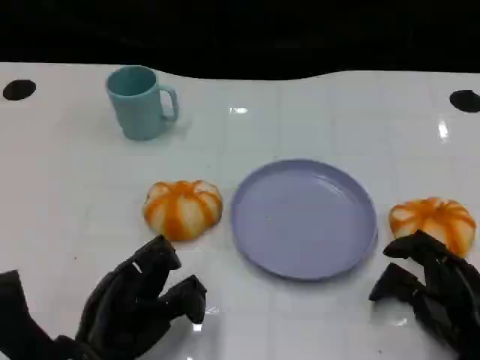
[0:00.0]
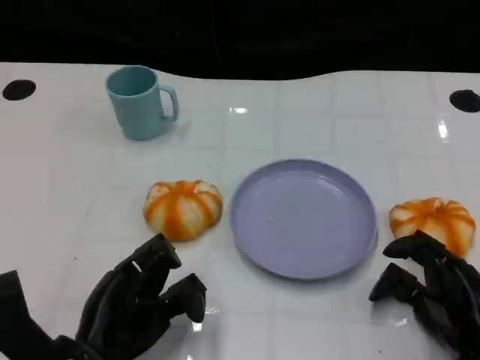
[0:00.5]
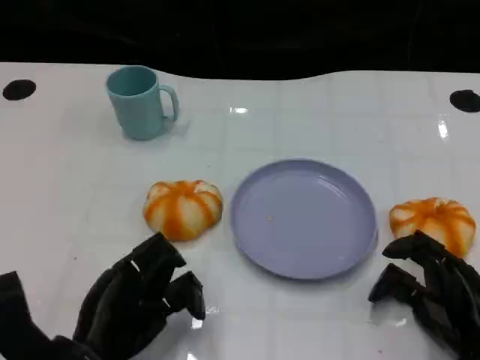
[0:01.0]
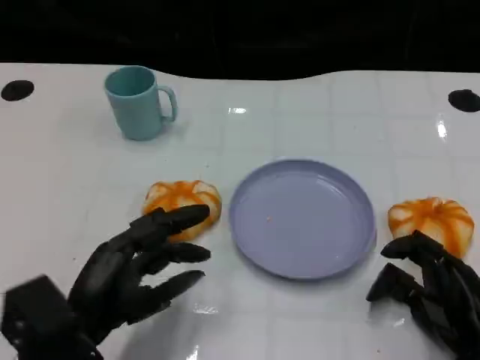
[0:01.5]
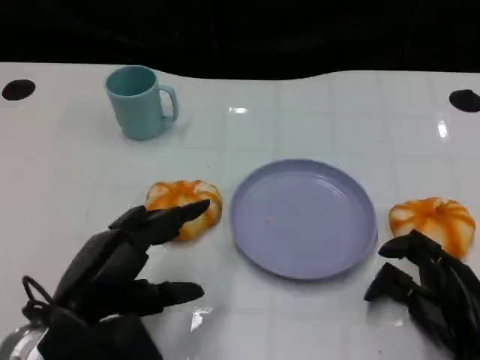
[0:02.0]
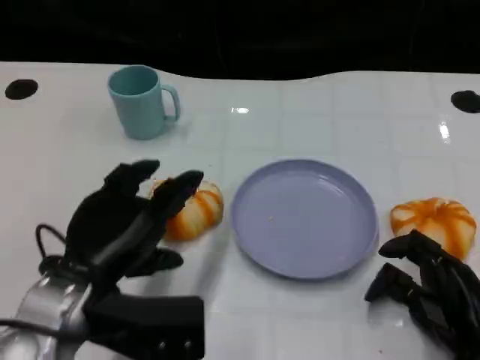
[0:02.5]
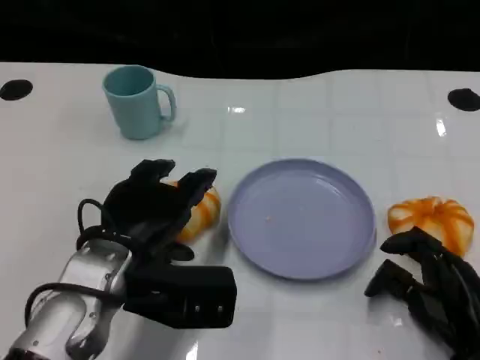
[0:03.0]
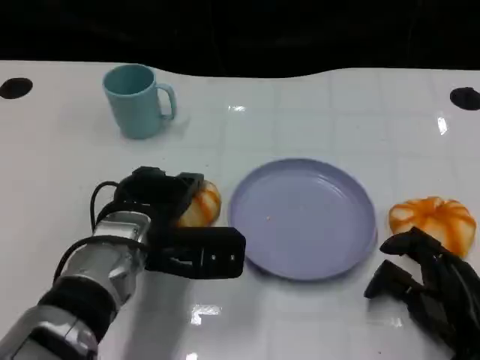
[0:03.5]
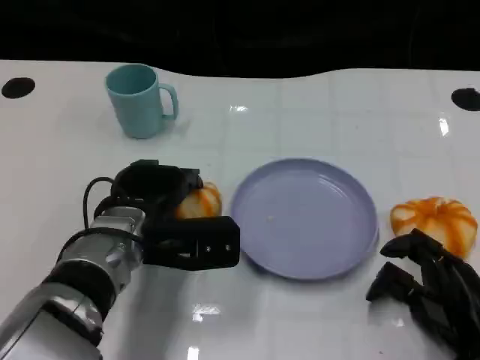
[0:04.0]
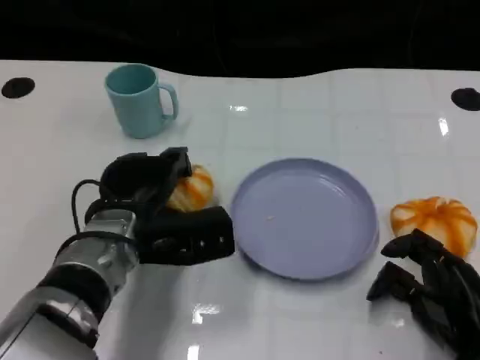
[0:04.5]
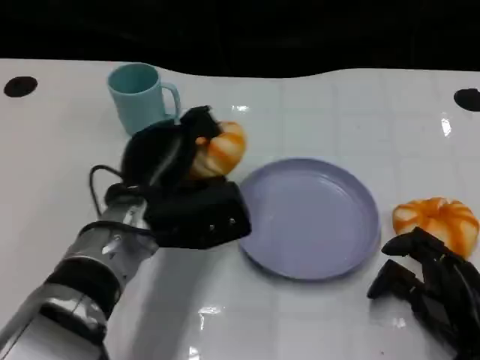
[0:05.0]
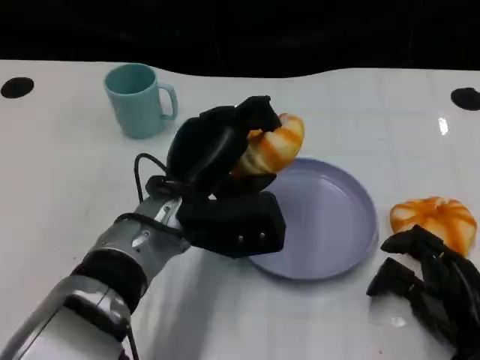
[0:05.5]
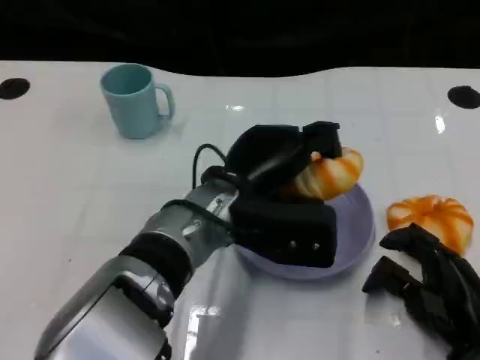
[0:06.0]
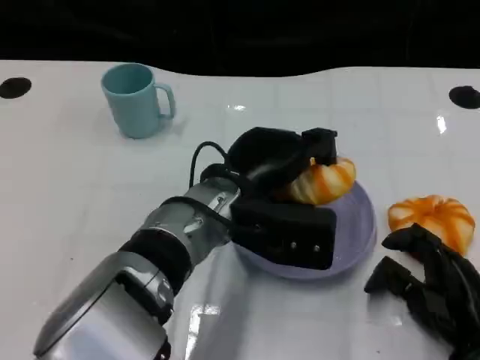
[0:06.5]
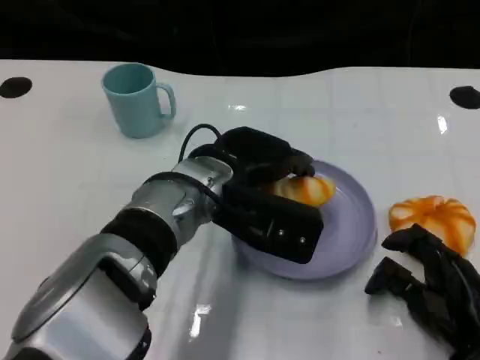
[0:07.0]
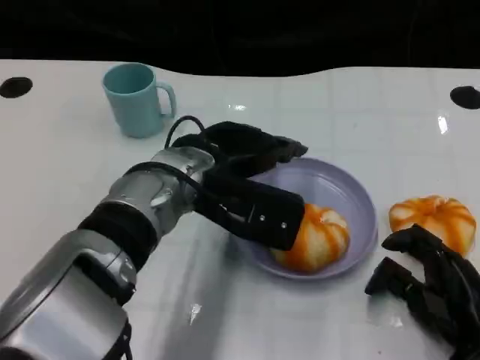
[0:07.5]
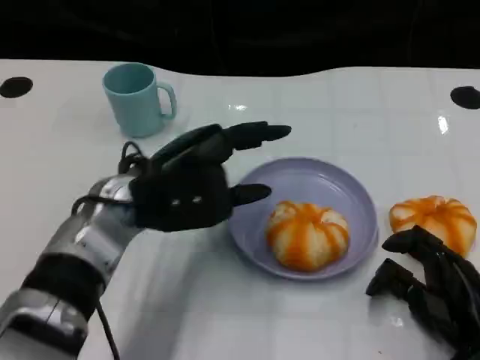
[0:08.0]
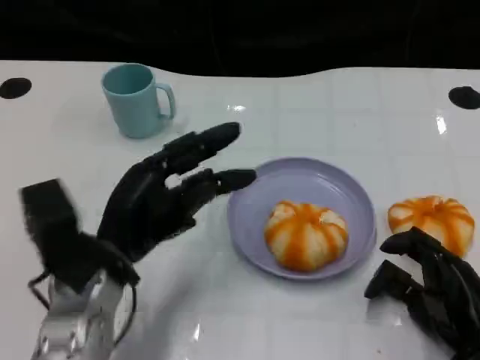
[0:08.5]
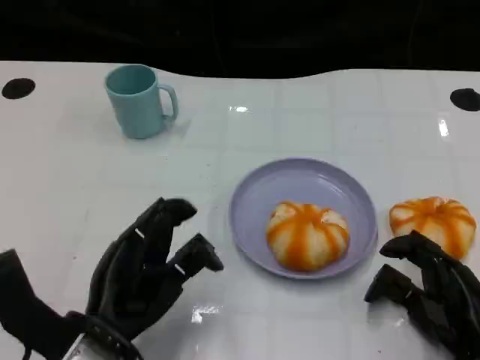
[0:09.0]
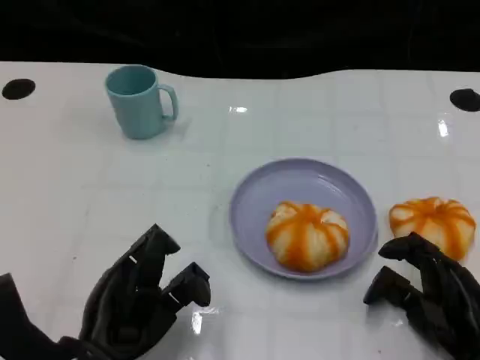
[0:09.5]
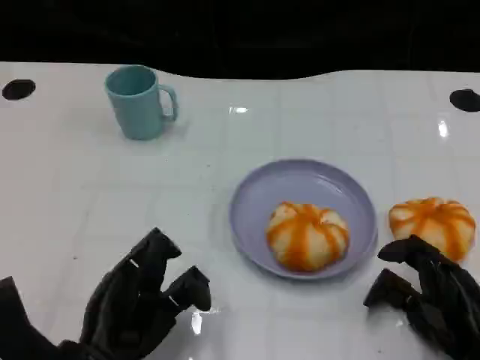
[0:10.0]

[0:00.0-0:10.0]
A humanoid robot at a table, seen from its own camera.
Task of the whole recording: Grasp the bread from the table and place it into the plate.
0:00.0 to 0:02.0: The left hand heads upward, covering approximately 5 cm.
0:02.0 to 0:04.0: The left hand is displaced forward and to the right by approximately 15 cm.
0:04.0 to 0:06.0: The left hand is displaced to the right by roughly 10 cm.
0:06.0 to 0:08.0: The left hand shifts about 10 cm to the left.
0:08.0 to 0:10.0: The left hand is displaced backward and downward by about 15 cm.

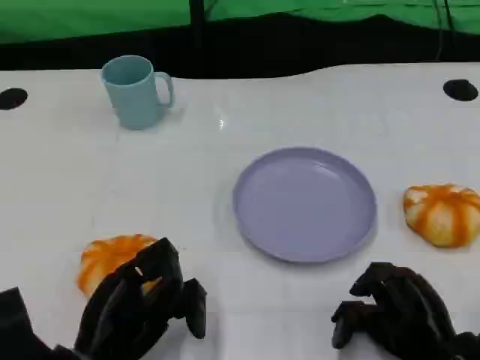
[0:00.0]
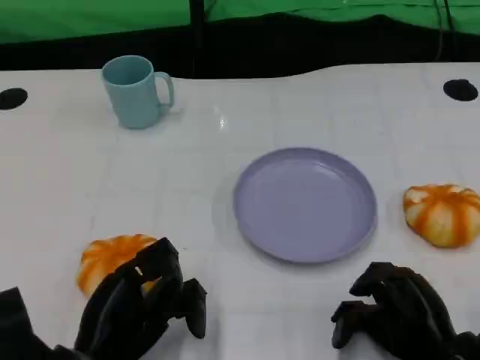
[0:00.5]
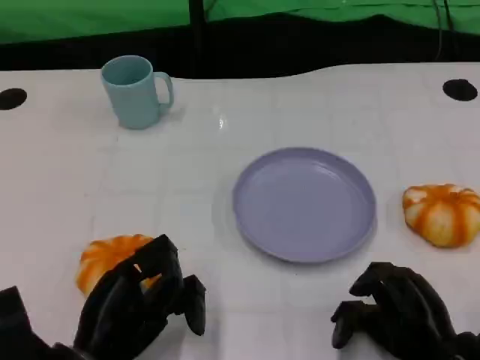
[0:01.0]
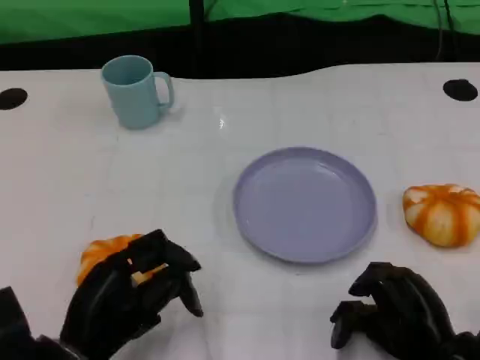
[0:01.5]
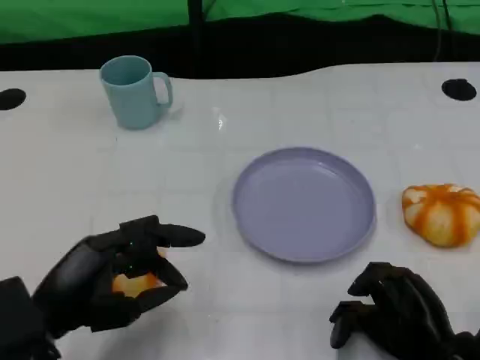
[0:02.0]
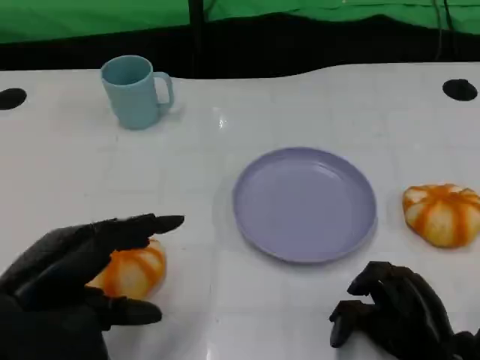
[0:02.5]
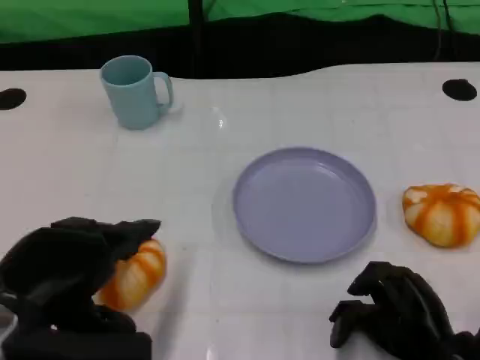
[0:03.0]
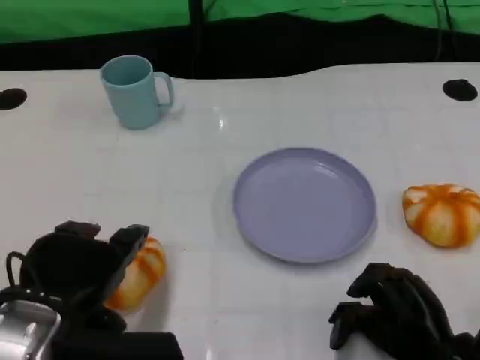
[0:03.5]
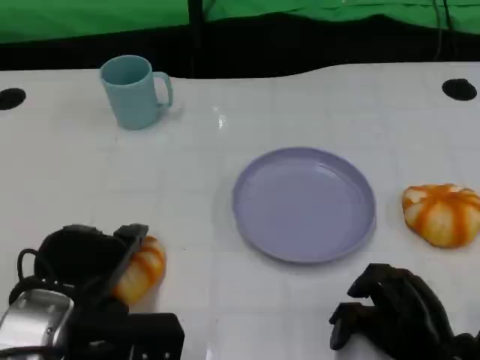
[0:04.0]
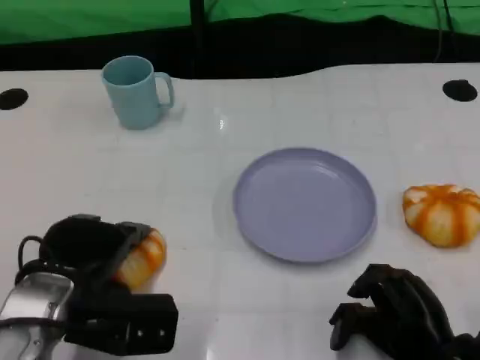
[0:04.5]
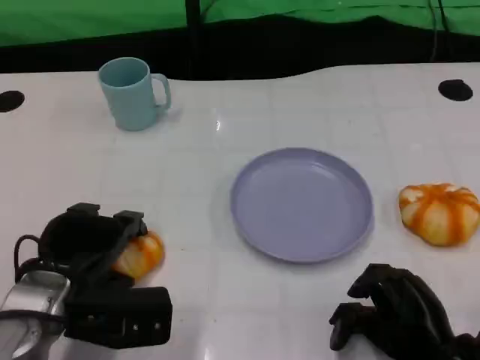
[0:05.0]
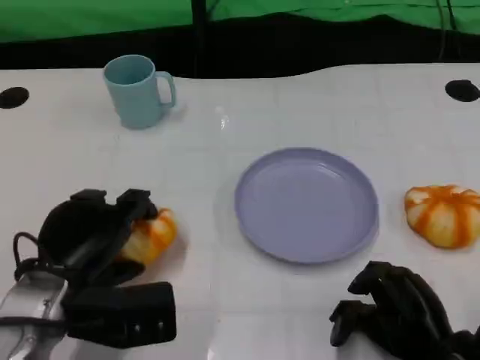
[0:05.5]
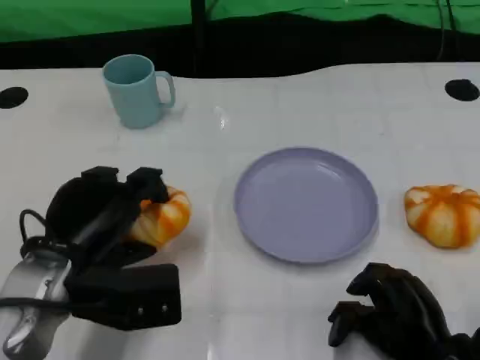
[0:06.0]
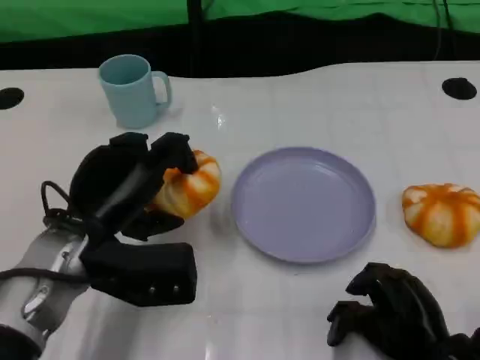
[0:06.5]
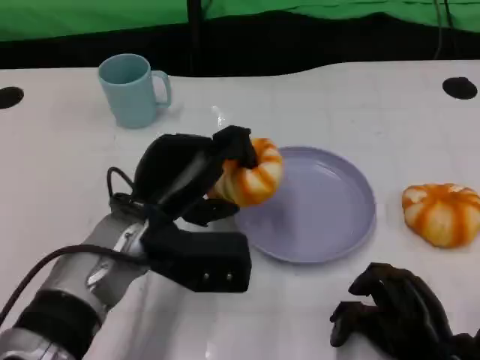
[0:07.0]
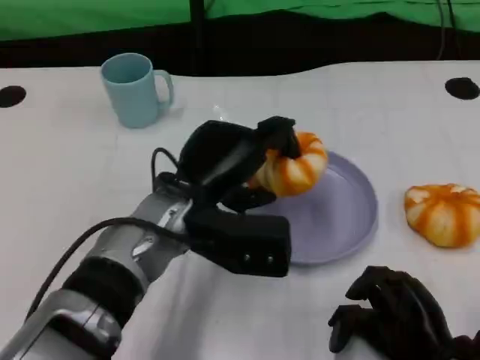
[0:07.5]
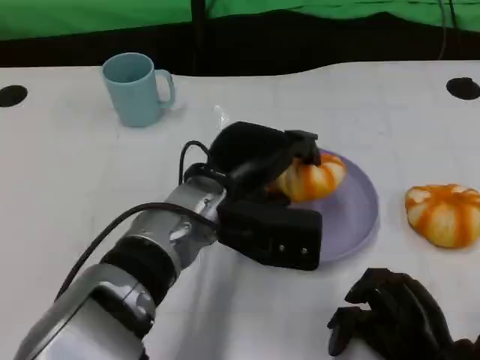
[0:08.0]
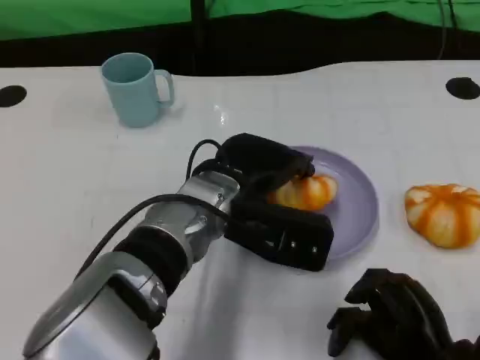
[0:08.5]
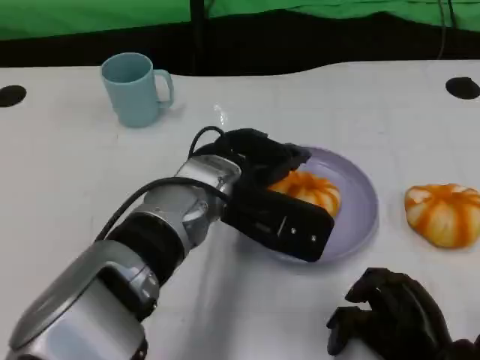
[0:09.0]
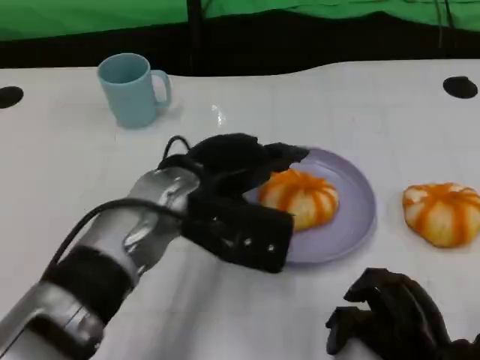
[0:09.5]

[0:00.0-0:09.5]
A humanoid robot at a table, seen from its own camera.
Task of the whole recording: Grasp the bread from the table and place it into the plate.
0:00.0 to 0:02.0: The left hand shifts about 5 cm upward.
0:05.5 to 0:07.5: The left hand shifts roughly 15 cm to the right and forward.

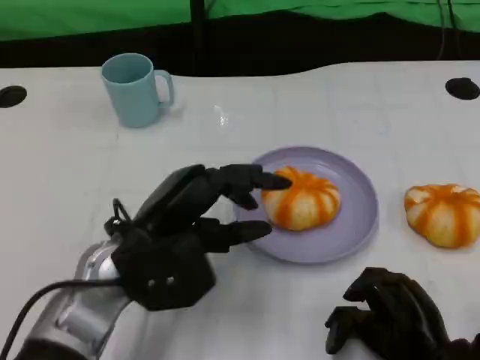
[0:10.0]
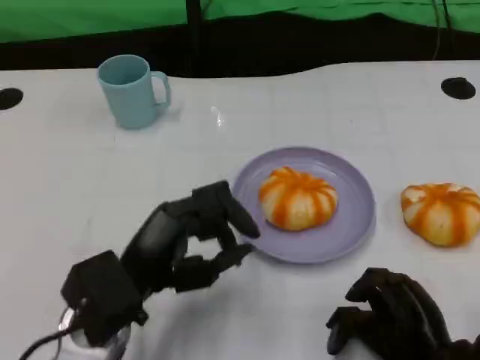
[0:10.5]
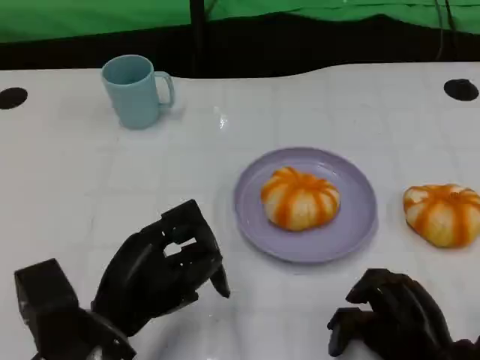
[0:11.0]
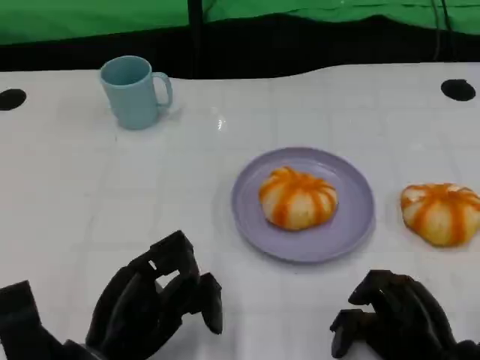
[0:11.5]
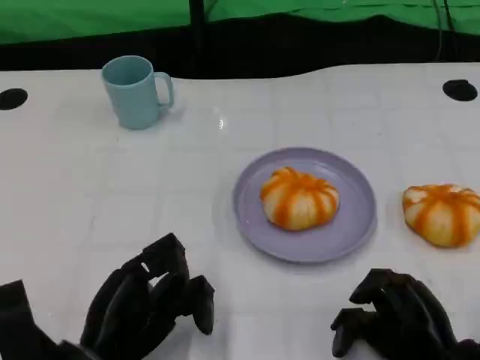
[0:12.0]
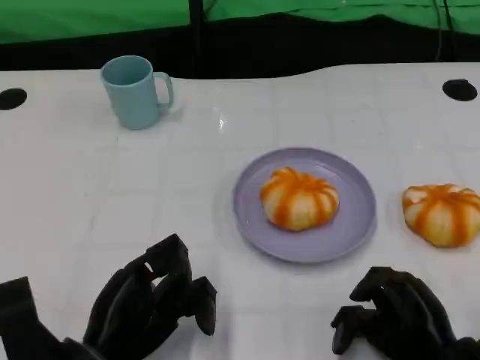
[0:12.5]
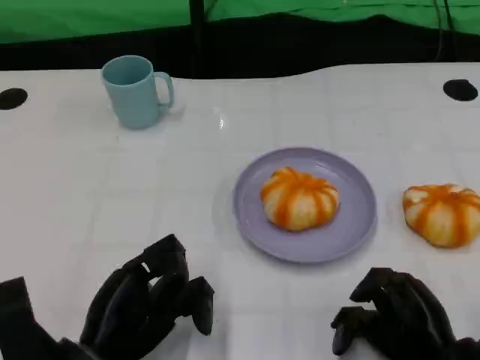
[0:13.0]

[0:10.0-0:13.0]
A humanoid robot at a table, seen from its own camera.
Task of the whole recording: Grasp the bread from the table and place it into the plate.
0:10.0 to 0:11.5: The left hand goes about 10 cm backward and downward.
0:11.5 to 0:13.0: The hands make only small movements.

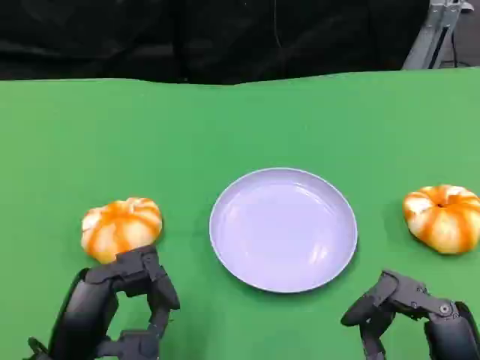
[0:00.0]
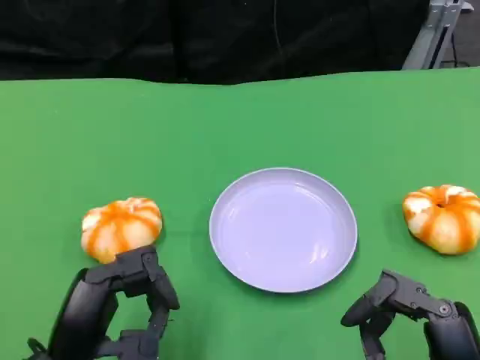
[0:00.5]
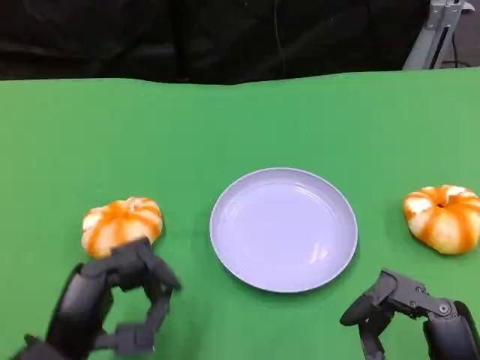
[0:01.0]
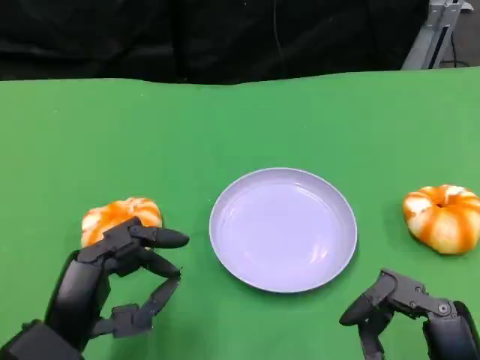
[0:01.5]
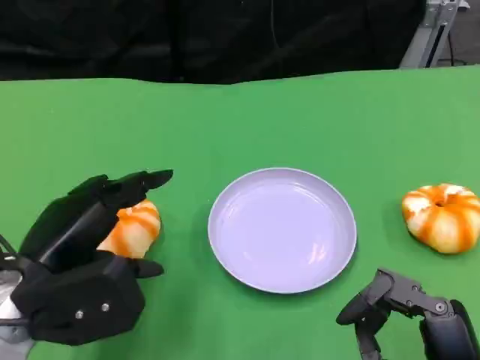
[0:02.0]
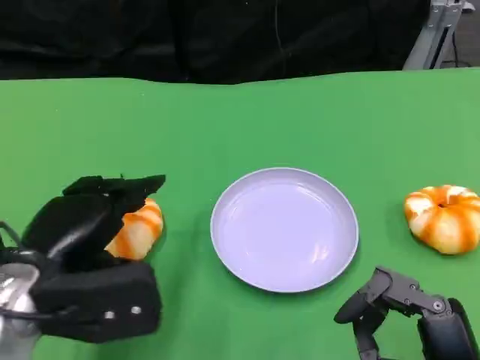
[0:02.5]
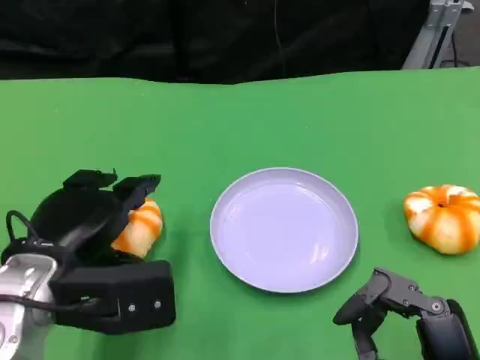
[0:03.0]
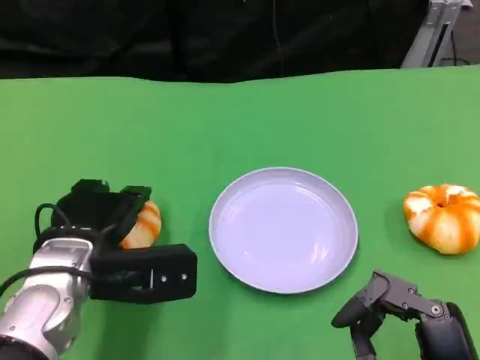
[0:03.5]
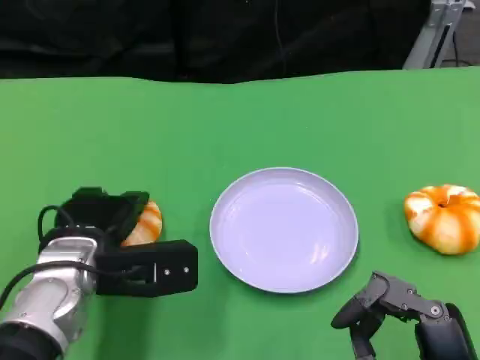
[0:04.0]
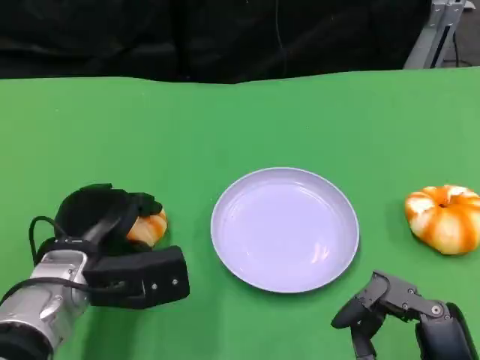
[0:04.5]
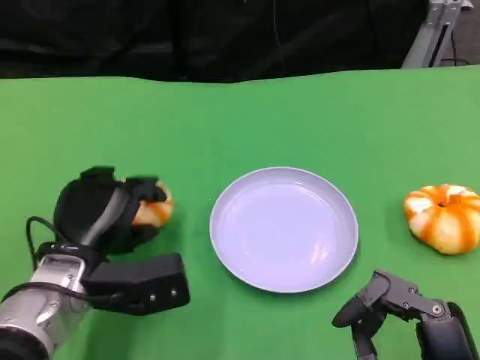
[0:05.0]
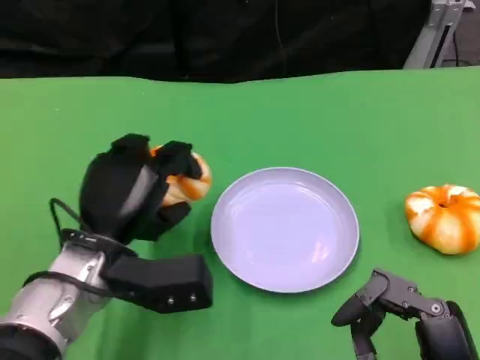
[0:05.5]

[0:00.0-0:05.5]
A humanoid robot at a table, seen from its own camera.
Task of the whole recording: Grasp the bread from the table and place it into the plate.
0:00.0 to 0:02.0: The left hand heads upward and forward, covering roughly 10 cm.
0:02.0 to 0:03.5: The left hand moves forward, some 5 cm.
